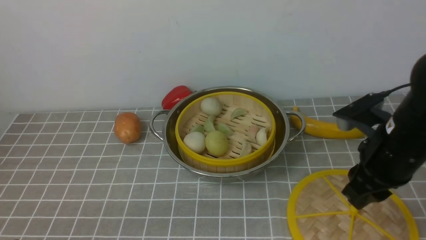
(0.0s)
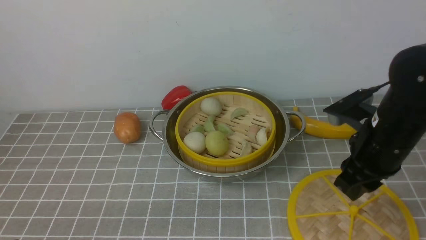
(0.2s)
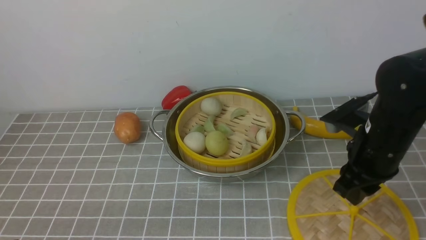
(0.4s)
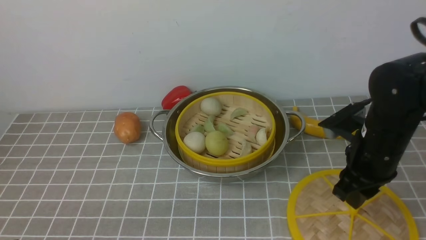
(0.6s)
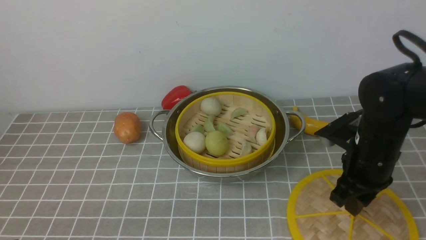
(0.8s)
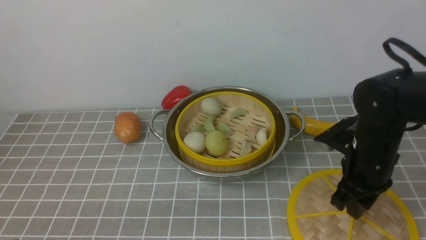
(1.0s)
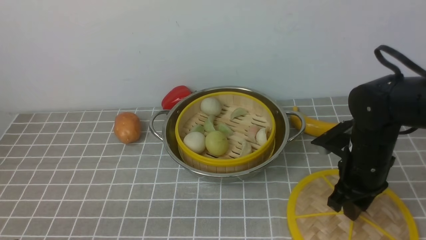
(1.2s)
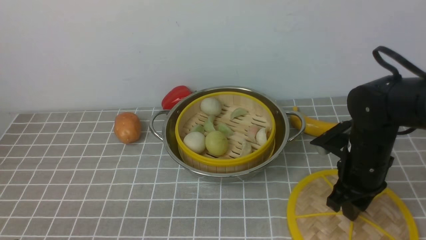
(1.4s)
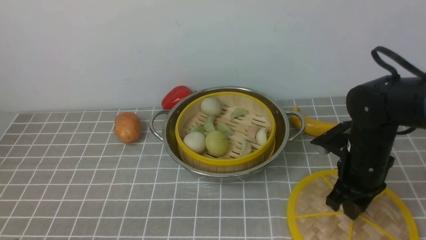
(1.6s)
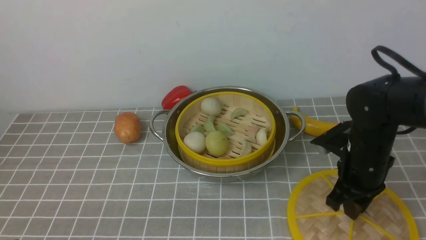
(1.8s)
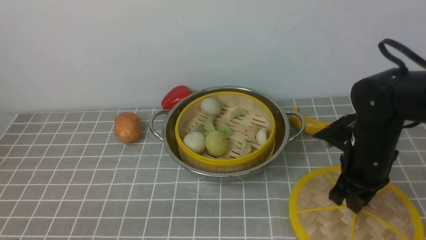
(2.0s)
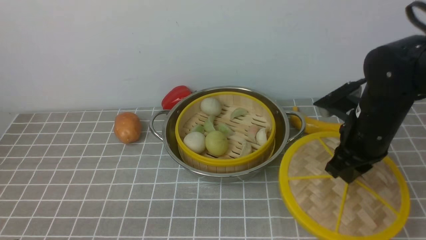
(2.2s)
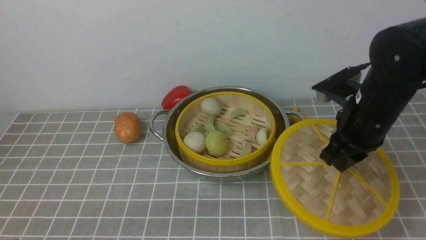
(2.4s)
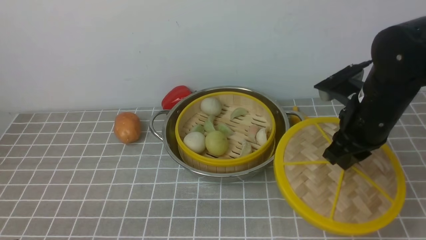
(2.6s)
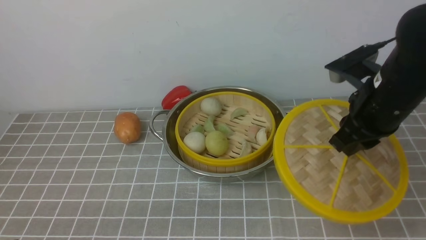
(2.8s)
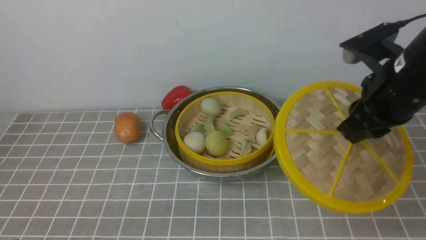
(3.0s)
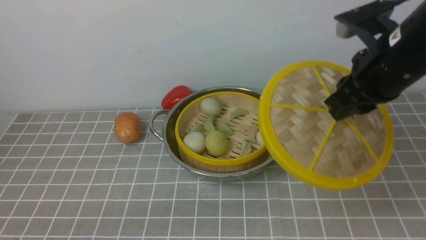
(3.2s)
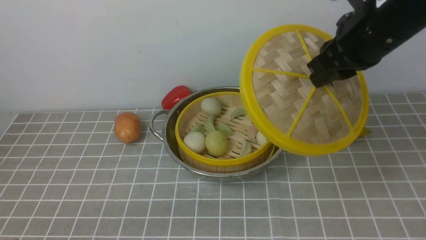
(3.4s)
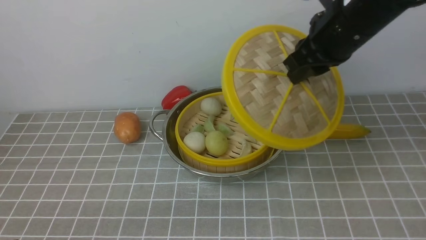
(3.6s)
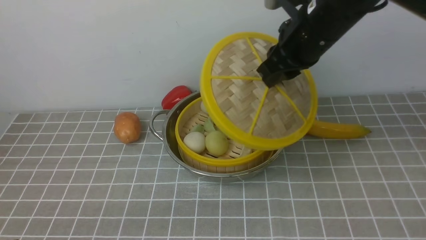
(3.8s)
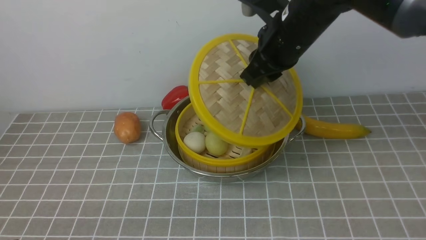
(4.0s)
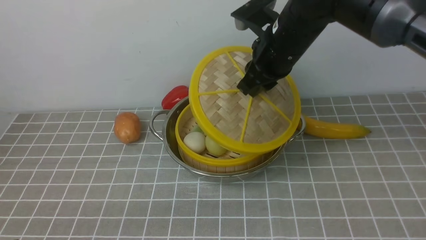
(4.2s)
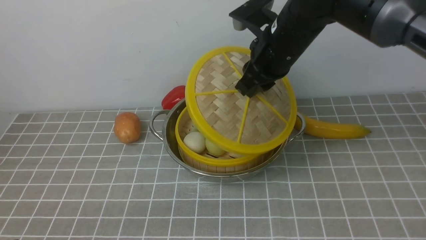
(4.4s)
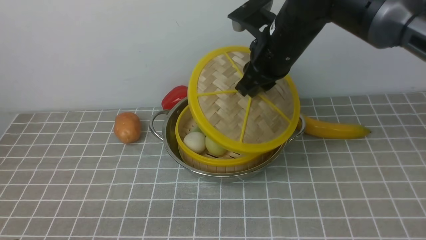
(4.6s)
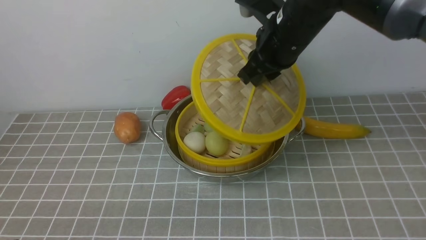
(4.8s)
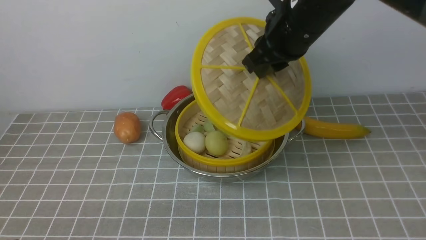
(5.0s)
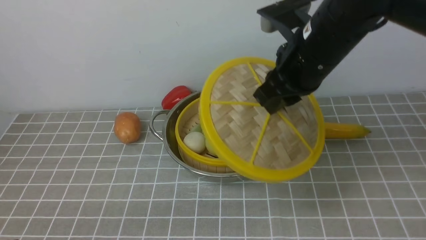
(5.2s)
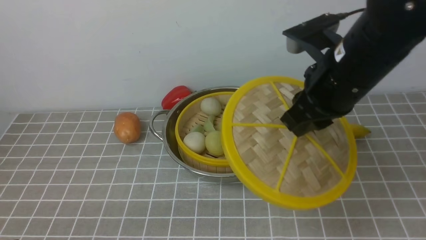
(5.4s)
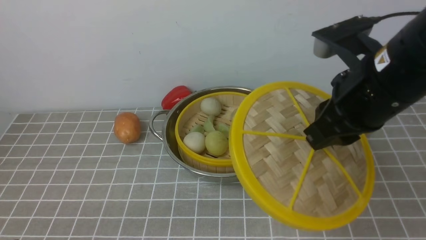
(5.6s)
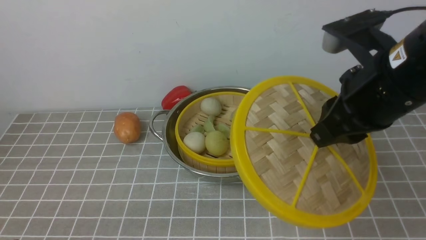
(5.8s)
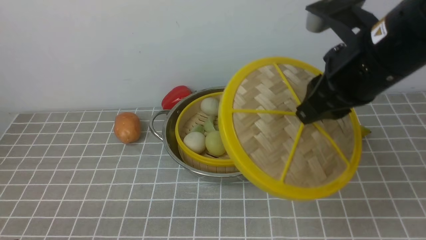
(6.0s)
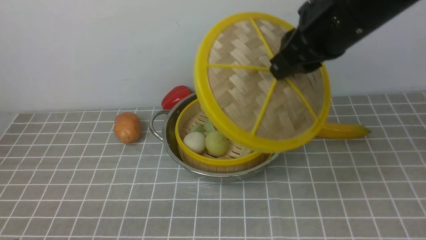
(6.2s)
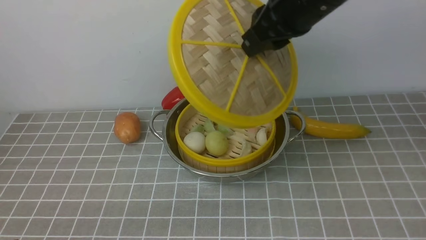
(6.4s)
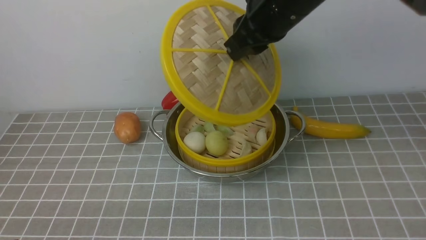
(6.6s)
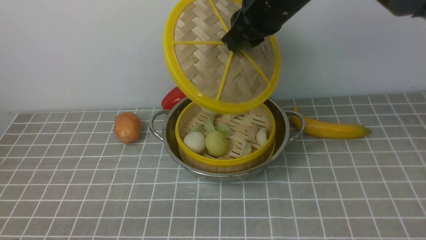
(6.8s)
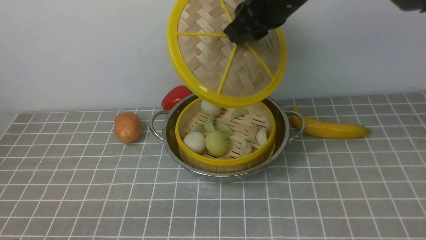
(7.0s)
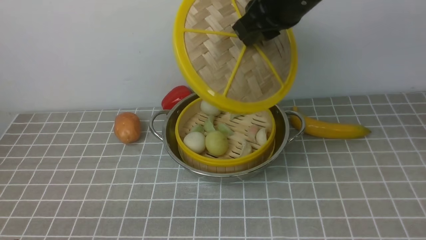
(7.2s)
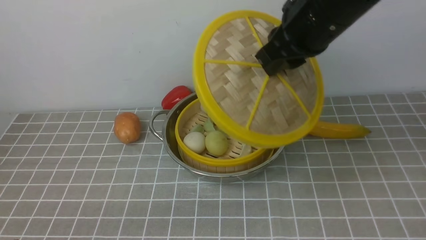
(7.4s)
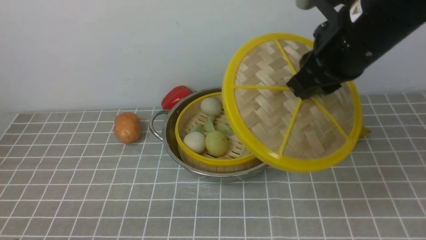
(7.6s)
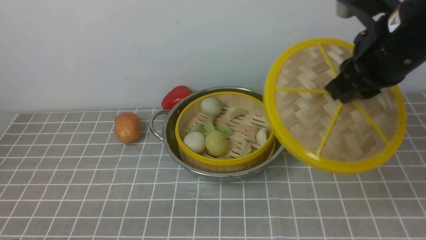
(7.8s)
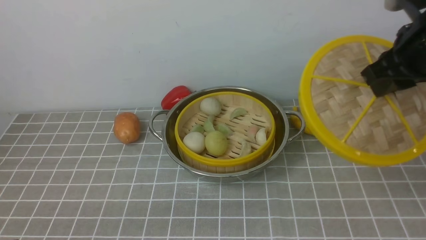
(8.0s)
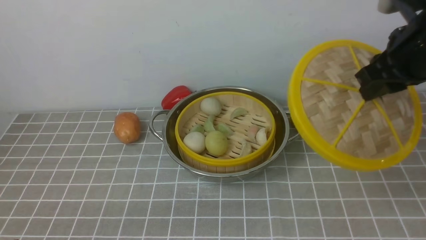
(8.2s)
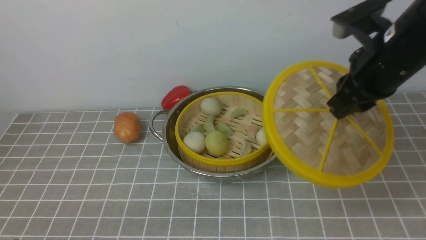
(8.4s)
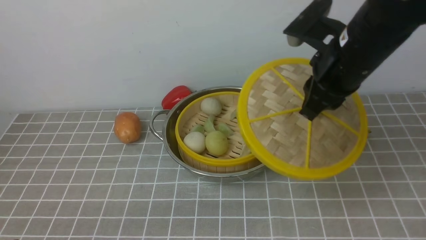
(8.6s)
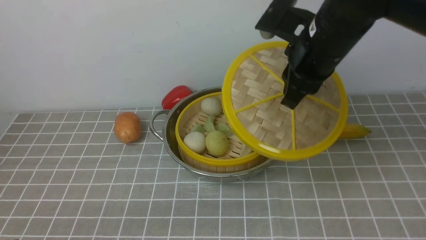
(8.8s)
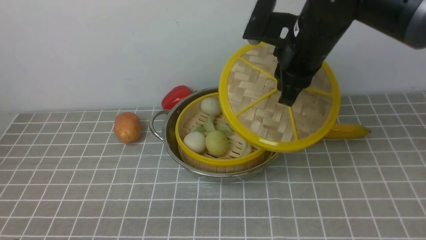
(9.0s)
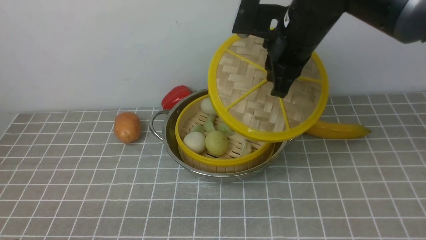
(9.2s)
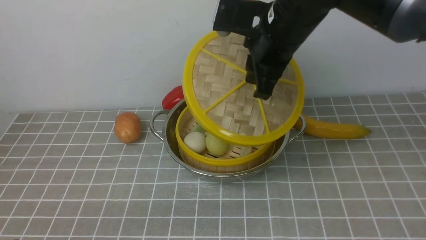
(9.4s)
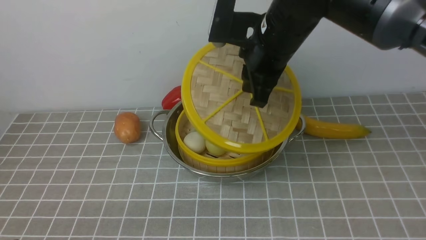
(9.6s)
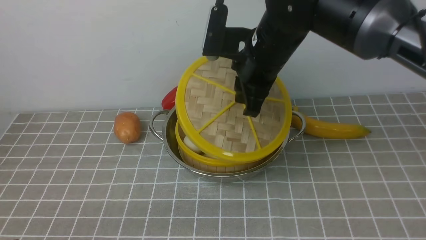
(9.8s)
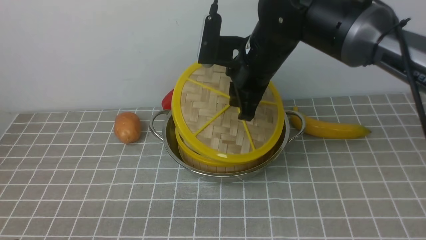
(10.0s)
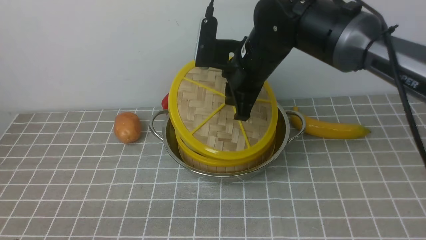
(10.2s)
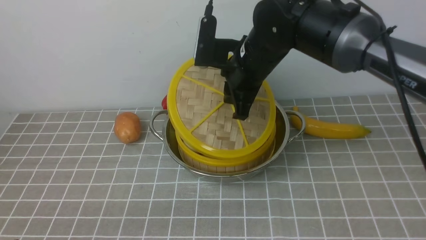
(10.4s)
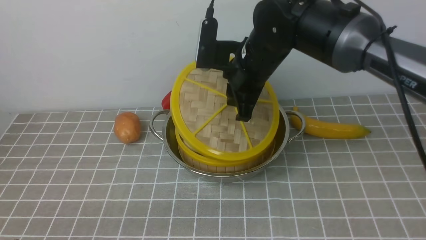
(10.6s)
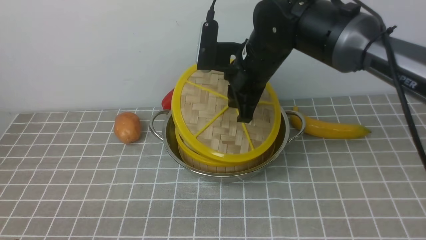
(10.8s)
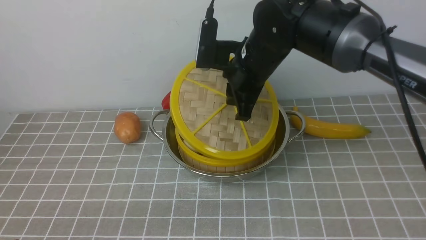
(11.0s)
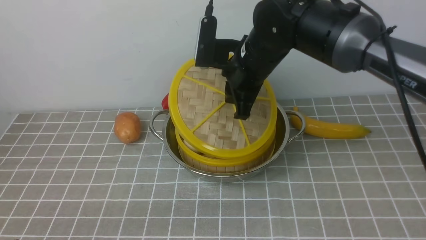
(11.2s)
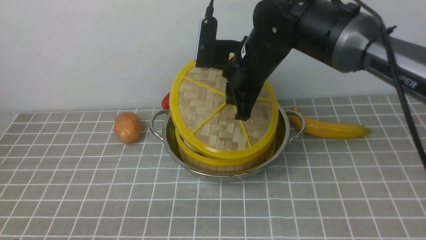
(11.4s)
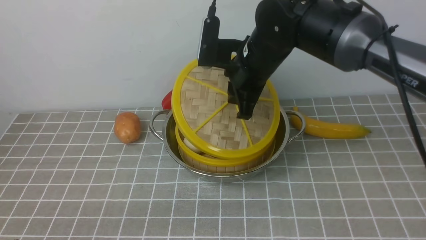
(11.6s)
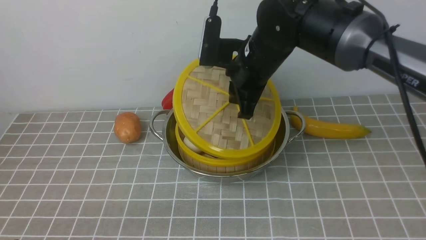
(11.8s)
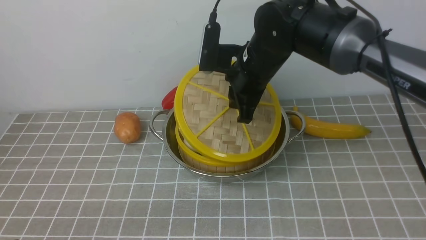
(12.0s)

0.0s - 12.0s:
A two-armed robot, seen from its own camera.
Task of the whole recording: place the steamer in the pot on the grey tablecloth, and put the lid on the steamer.
0.0s - 1.6s: The right gripper travels downward by some 10 cm.
1.6s - 3.0s: The right gripper goes approximately 15 cm upward.
3.0s - 4.4s: The right gripper goes some 15 cm to the left and forward.
4.4s - 6.0s: The right gripper goes approximately 15 cm backward, upward and to the right.
6.0s - 7.6s: The right gripper reaches about 10 cm forward, then returns.
7.6s - 9.0s: The right gripper moves forward, some 5 cm.
9.0s - 10.4s: The right gripper is displaced to the left by approximately 5 cm.
10.4s - 12.0s: The two grippers keep their place.

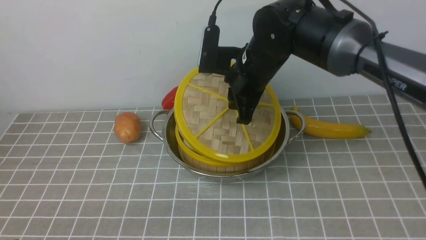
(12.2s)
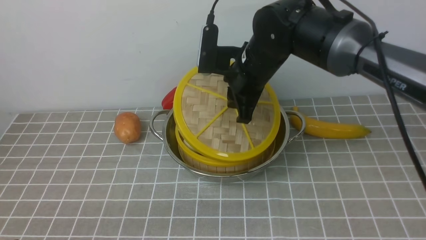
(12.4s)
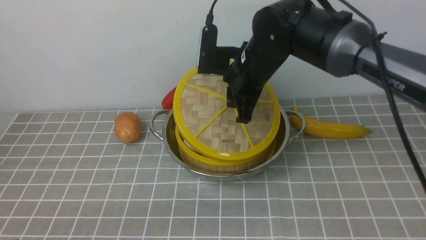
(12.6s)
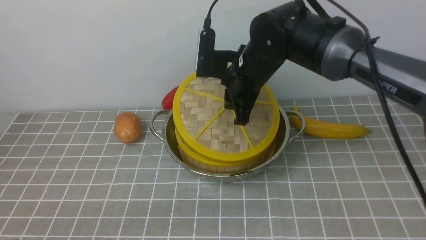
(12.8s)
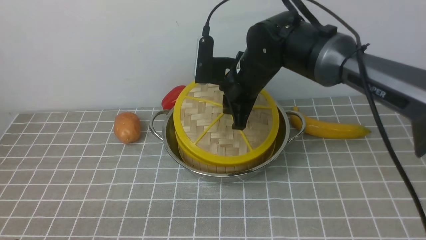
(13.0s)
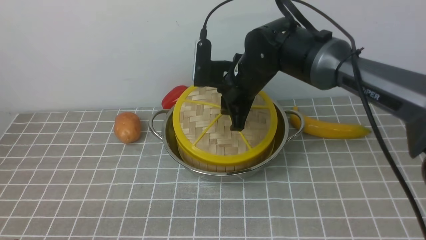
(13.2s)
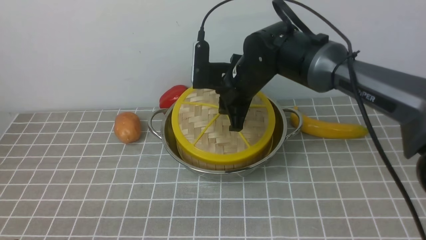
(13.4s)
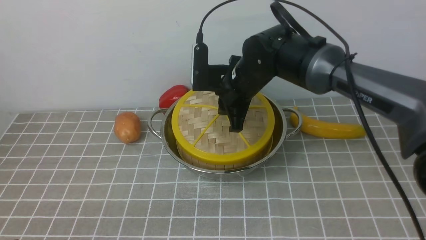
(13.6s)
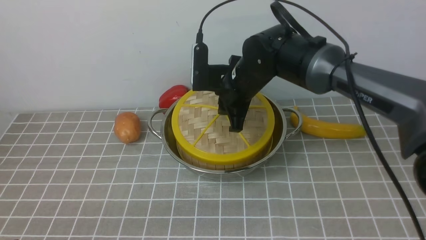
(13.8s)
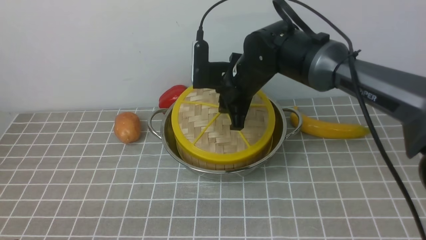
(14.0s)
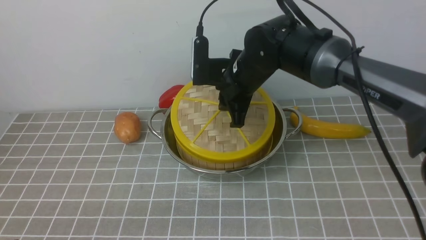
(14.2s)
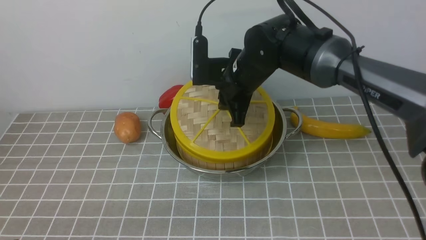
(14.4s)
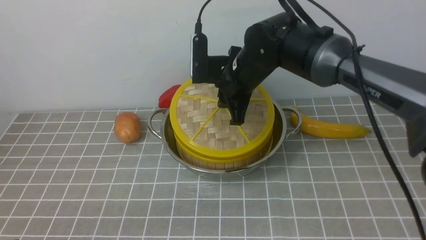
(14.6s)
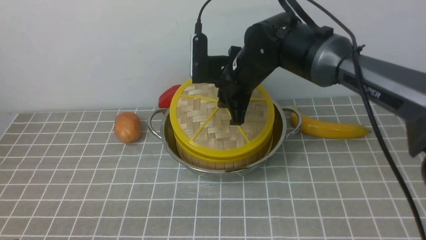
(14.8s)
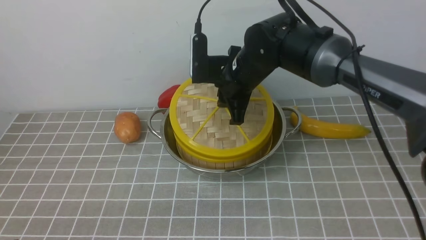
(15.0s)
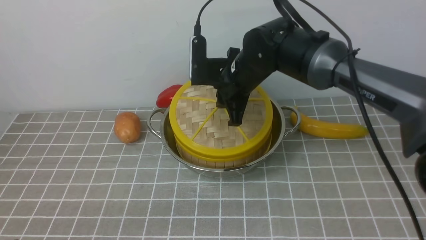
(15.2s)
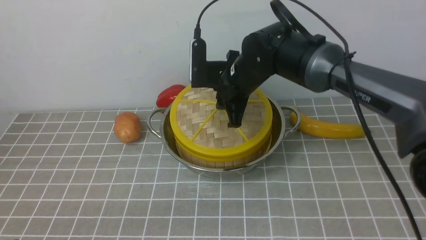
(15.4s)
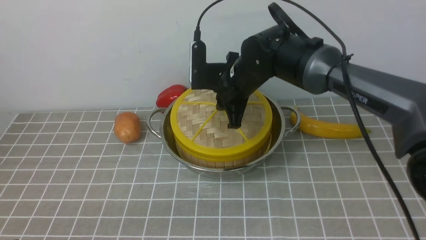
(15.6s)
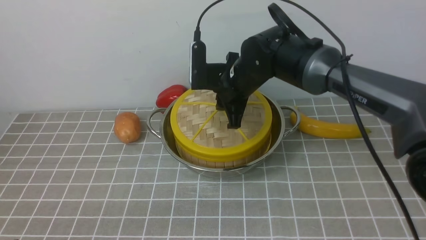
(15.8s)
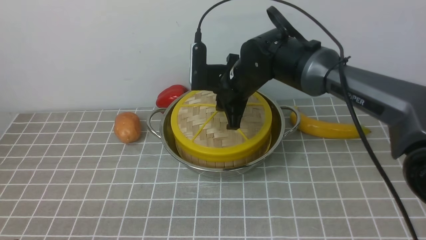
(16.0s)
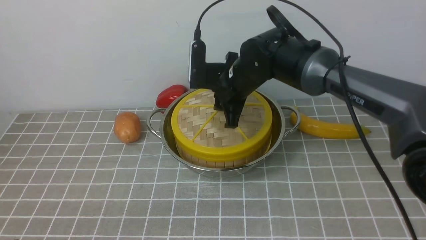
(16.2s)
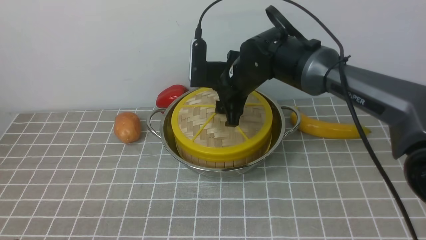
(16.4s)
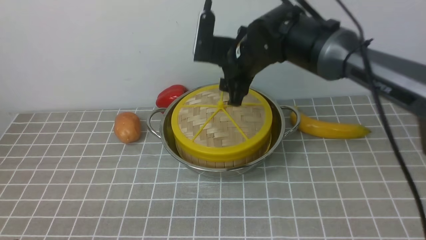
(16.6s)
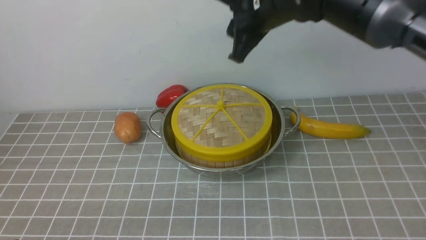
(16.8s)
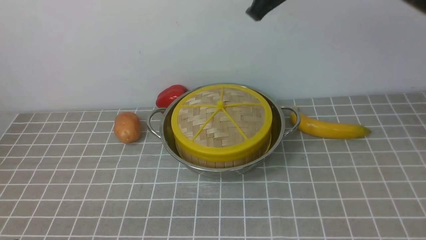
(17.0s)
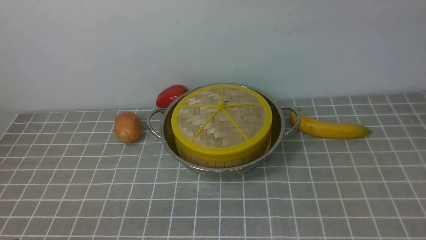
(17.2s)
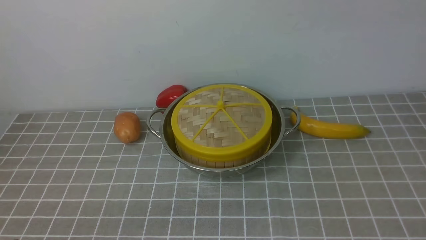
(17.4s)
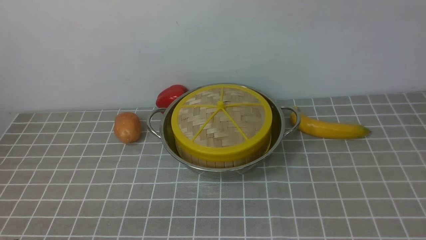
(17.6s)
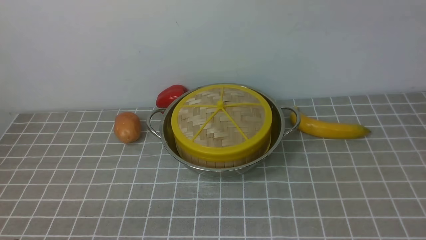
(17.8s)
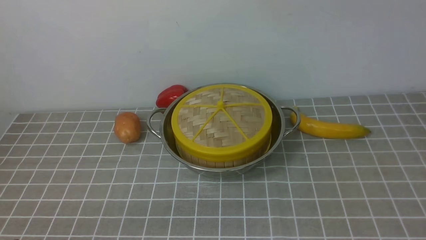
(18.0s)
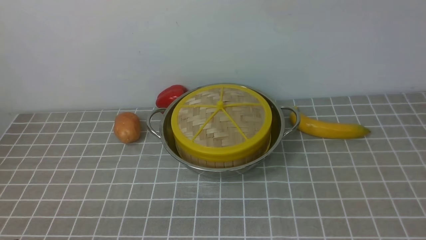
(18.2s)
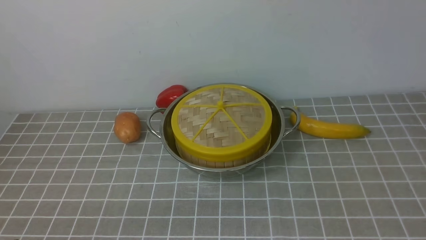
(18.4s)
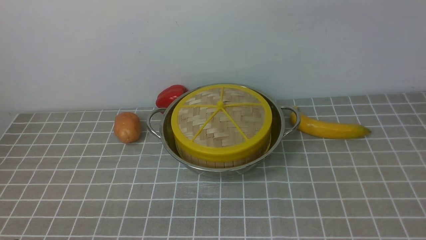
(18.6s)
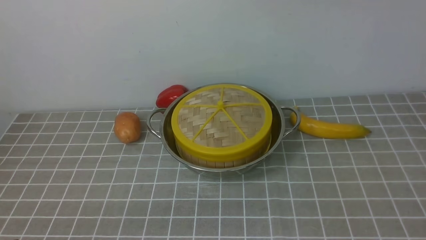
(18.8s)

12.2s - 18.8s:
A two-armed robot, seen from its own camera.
Task of the whole recording: place the steamer in the pot on the grey tablecloth, and put the lid on the steamer.
Step, 12.2s - 16.4s: use the right arm to place the steamer lid on the steamer.
12.2s - 15.4s: There are only small adjustments of the grippers.
15.4s - 17.2s: The right gripper goes some 25 cm upward and to the right, and closes up.
